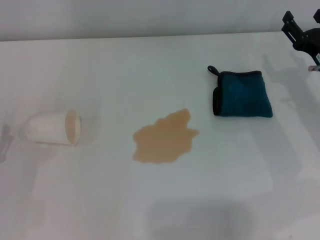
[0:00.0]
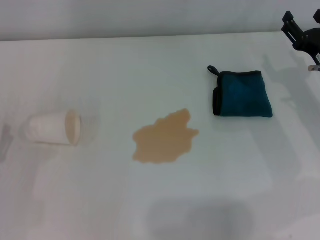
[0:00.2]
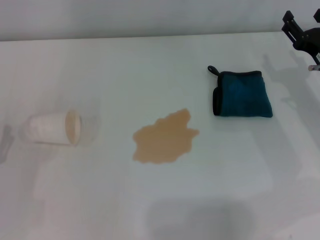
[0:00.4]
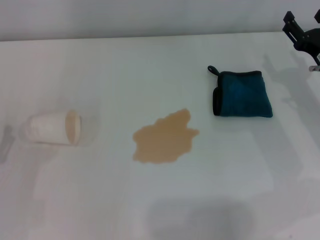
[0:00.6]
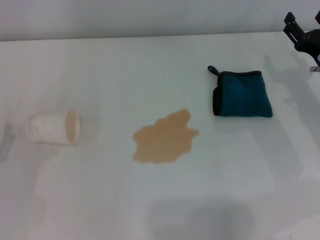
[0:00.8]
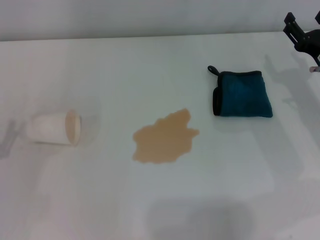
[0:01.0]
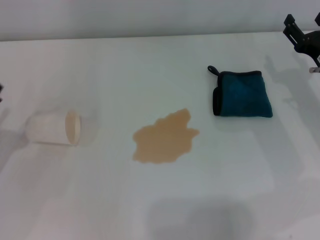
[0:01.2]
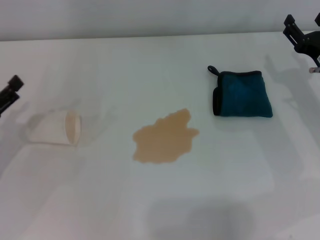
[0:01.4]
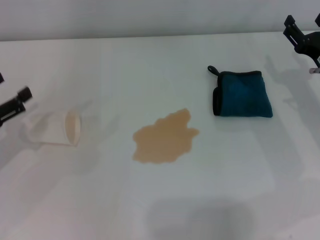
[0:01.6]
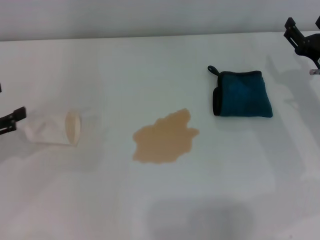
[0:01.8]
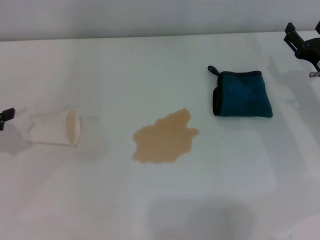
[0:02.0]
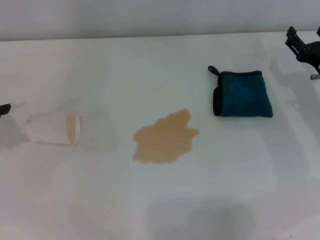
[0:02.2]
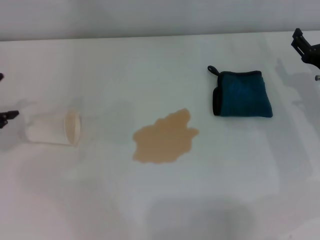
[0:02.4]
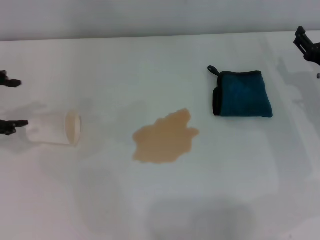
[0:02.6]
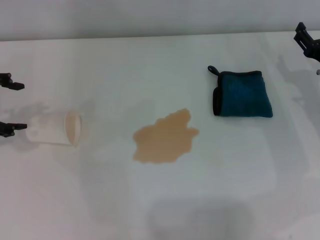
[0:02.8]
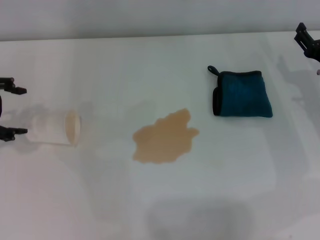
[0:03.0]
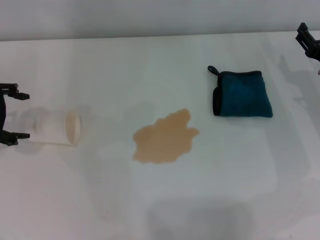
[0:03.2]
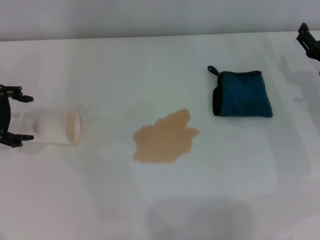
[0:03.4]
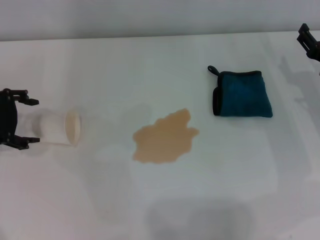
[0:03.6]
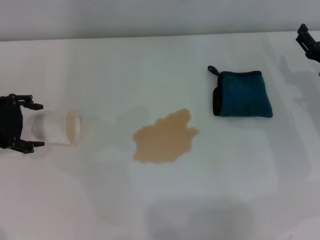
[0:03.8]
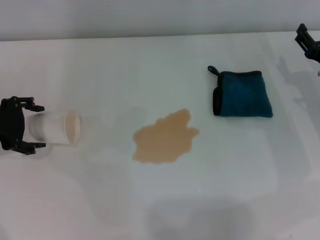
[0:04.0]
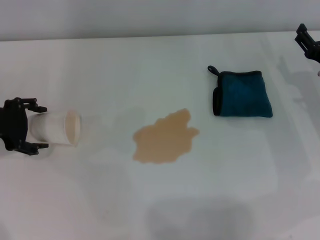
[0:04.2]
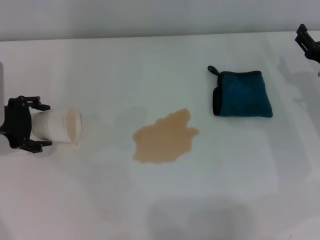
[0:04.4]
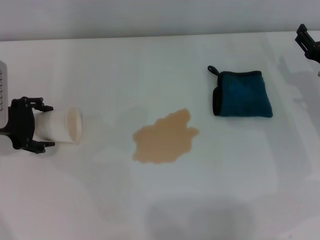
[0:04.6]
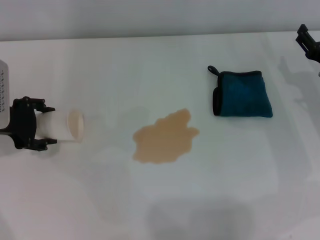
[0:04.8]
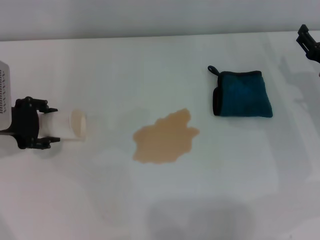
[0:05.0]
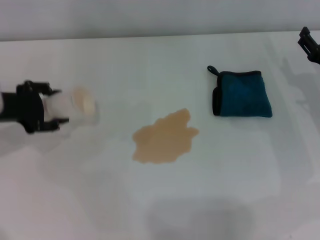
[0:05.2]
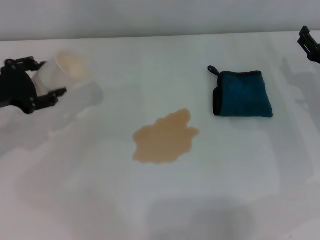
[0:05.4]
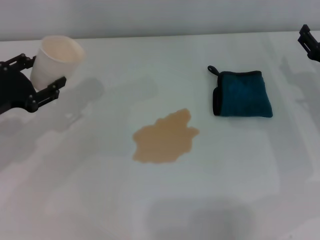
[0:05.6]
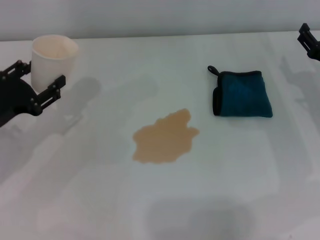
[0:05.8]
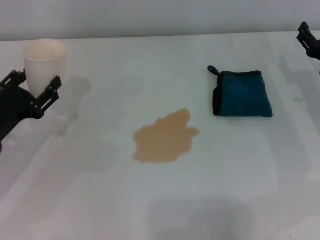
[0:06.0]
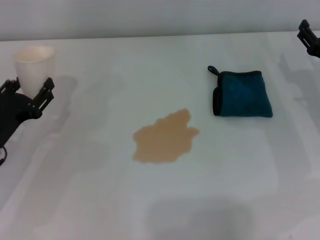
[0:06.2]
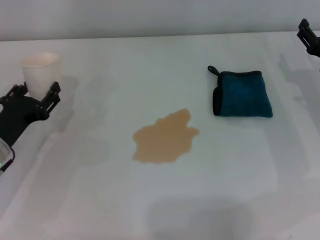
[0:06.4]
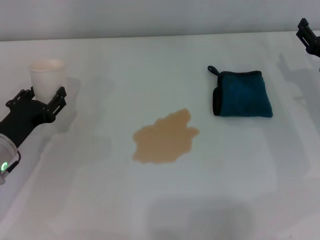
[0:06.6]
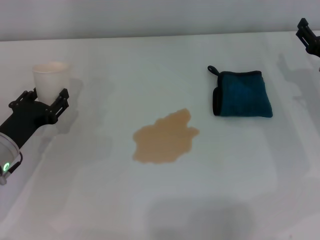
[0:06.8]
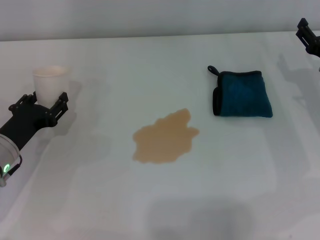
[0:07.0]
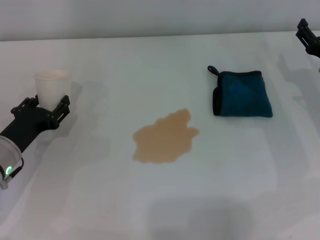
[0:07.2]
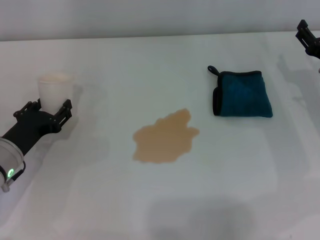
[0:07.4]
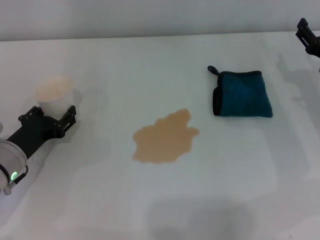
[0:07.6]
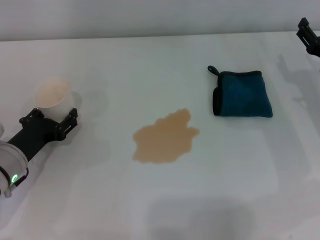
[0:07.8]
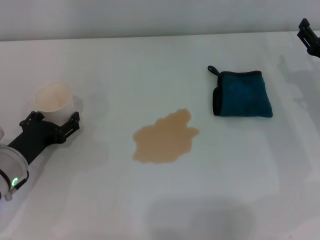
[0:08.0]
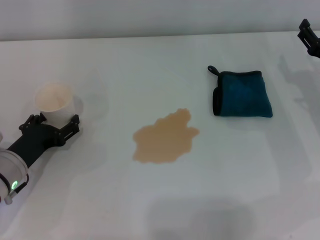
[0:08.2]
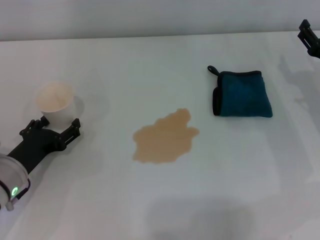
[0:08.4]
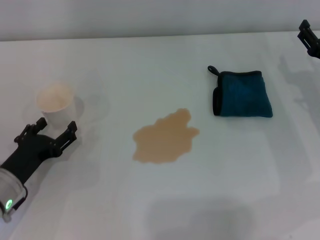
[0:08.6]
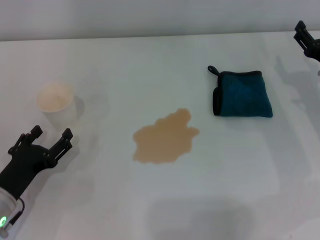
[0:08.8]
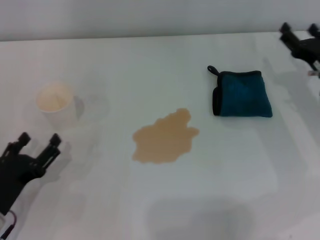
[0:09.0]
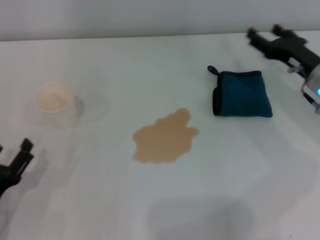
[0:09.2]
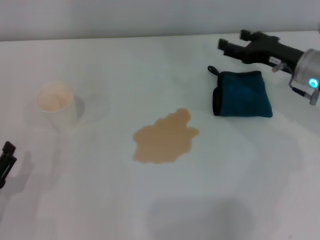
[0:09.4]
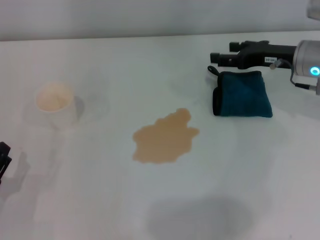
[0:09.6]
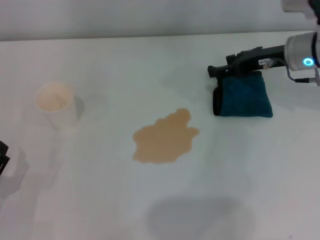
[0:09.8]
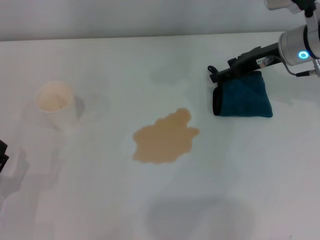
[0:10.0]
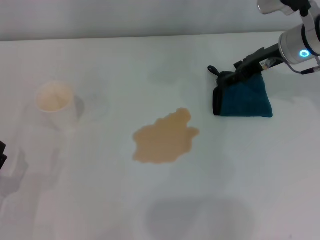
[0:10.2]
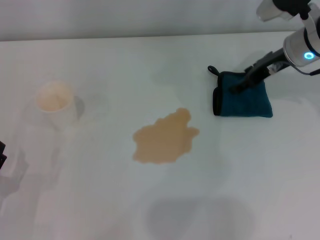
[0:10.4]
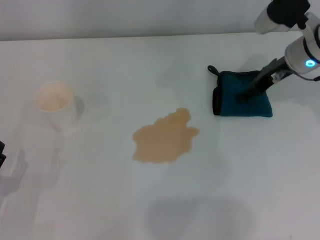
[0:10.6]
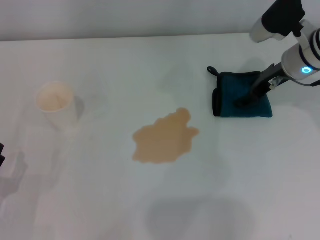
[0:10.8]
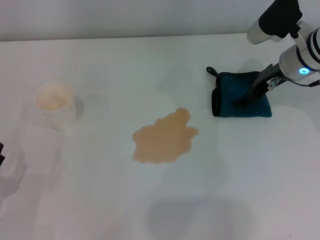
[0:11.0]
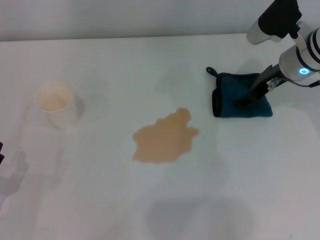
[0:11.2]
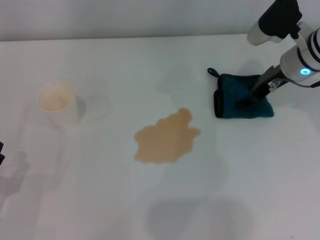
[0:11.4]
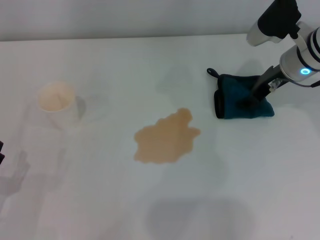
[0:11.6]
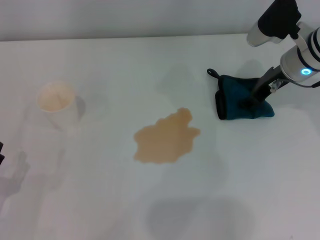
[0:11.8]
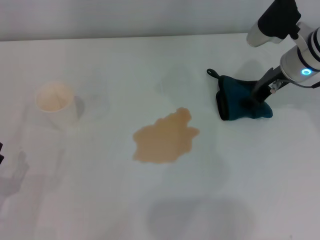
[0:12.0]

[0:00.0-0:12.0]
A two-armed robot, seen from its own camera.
Step, 0:00.0 to 0:04.6: Grasp the paper cup with the left gripper.
Step, 0:04.8 to 0:08.4: Stand the paper cup upright with the left gripper.
0:00.0 to 0:01.6: The left gripper is displaced upward and forward by about 10 cm.
0:01.6 to 0:03.0: The left gripper heads upward and forward, covering about 10 cm.
0:03.0 to 0:04.4: The left gripper heads downward, covering approximately 5 cm.
0:04.4 to 0:06.0: The left gripper shifts roughly 10 cm backward and downward, and closes up.
0:06.0 to 0:07.6: The left gripper ends up some 5 cm from where it was.
0:07.6 to 0:09.0: The left gripper moves backward, about 10 cm, and opens.
0:09.0 to 0:10.4: The right gripper shifts roughly 15 cm forward and upward. The left gripper ends up roughly 5 cm from where it was.
0:10.4 to 0:12.0: The grippers stay close to where they were, moving slightly.

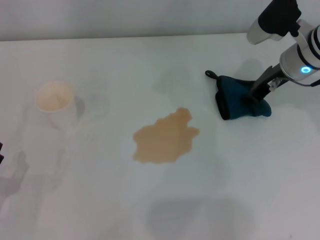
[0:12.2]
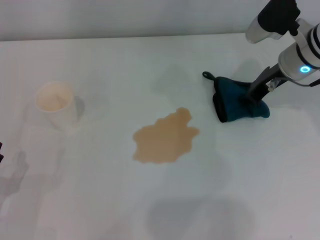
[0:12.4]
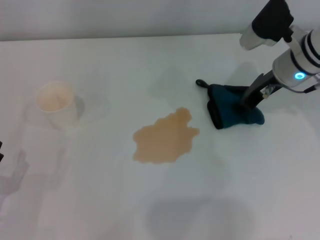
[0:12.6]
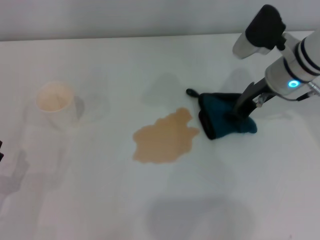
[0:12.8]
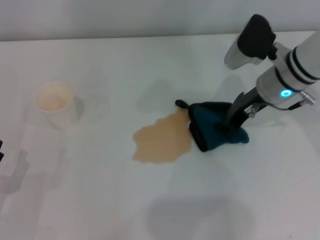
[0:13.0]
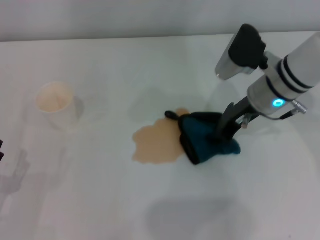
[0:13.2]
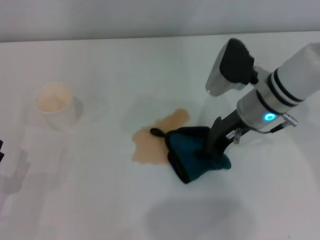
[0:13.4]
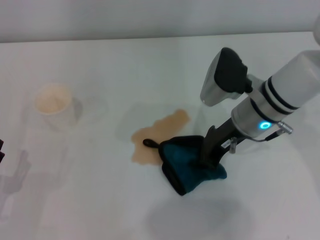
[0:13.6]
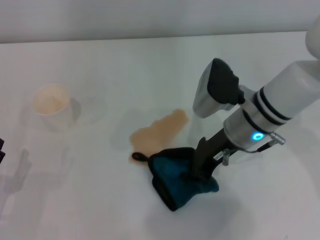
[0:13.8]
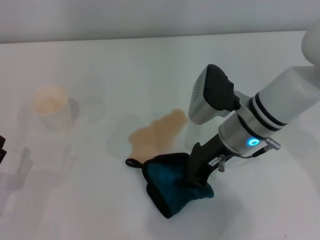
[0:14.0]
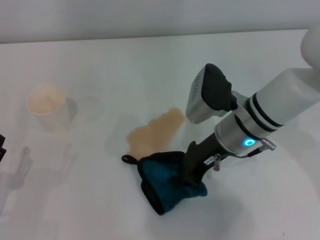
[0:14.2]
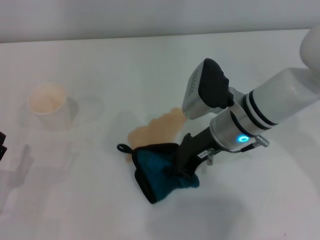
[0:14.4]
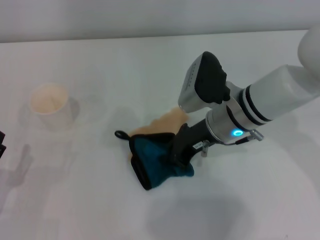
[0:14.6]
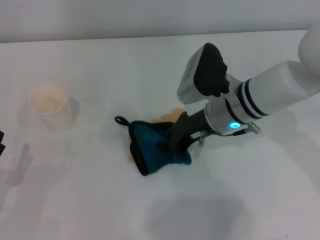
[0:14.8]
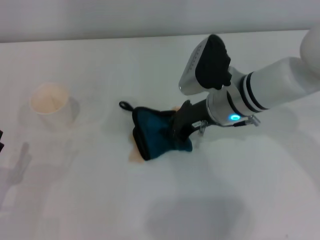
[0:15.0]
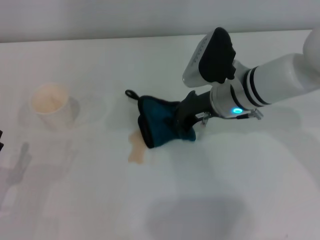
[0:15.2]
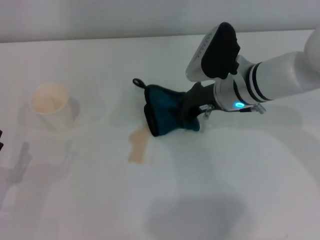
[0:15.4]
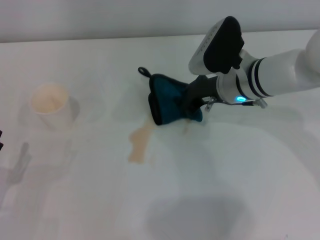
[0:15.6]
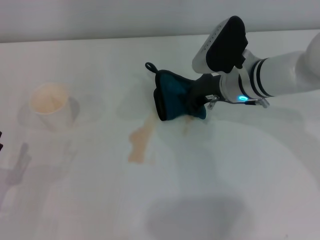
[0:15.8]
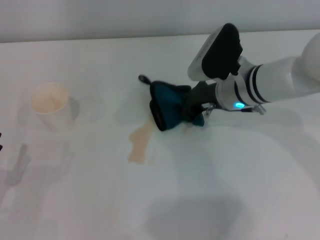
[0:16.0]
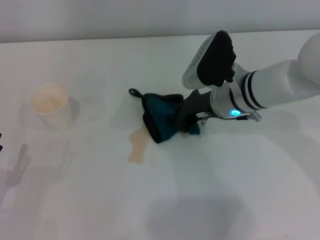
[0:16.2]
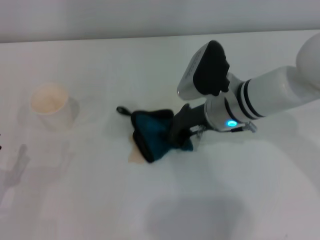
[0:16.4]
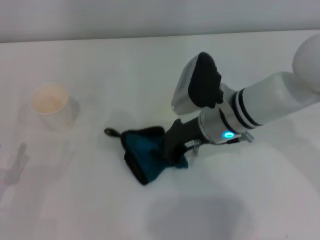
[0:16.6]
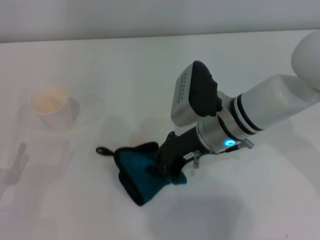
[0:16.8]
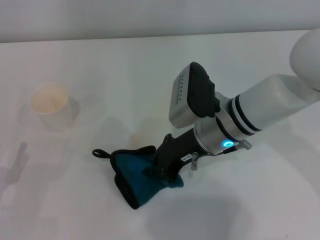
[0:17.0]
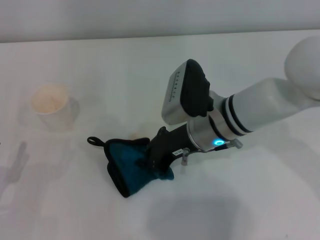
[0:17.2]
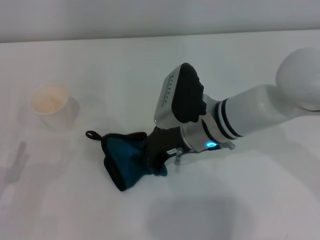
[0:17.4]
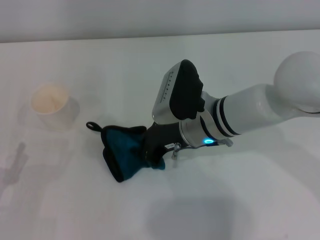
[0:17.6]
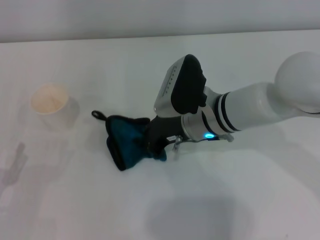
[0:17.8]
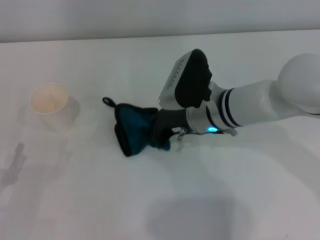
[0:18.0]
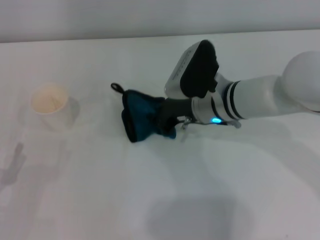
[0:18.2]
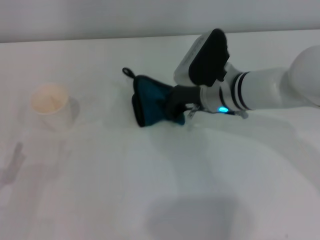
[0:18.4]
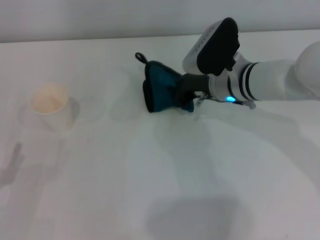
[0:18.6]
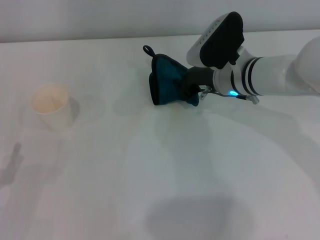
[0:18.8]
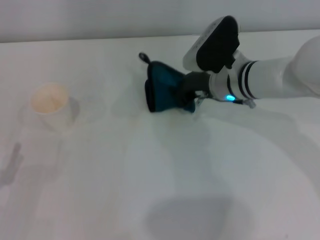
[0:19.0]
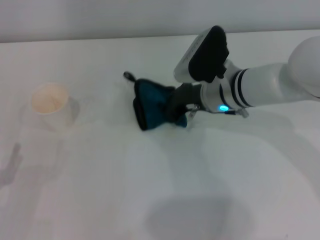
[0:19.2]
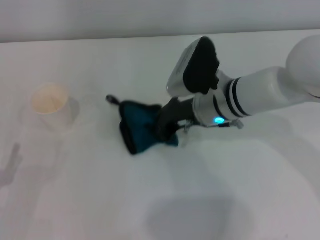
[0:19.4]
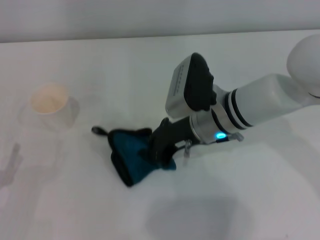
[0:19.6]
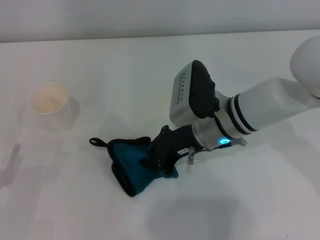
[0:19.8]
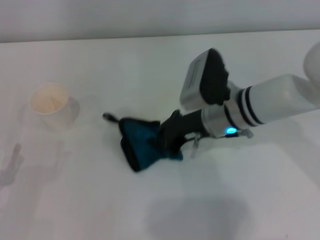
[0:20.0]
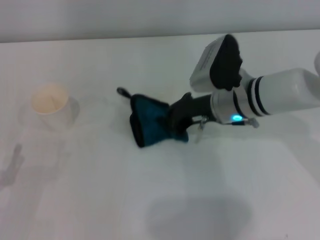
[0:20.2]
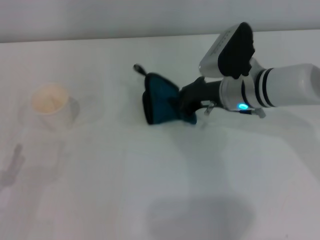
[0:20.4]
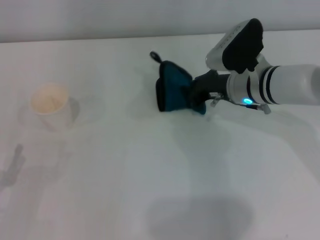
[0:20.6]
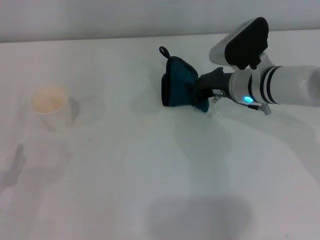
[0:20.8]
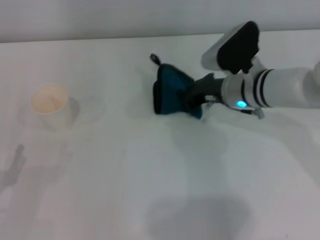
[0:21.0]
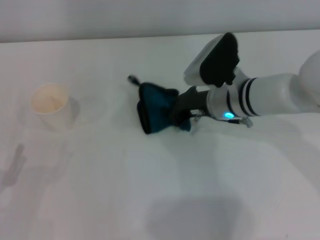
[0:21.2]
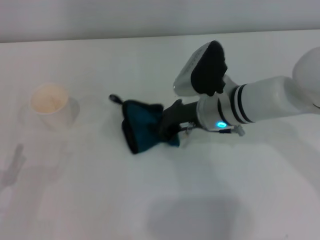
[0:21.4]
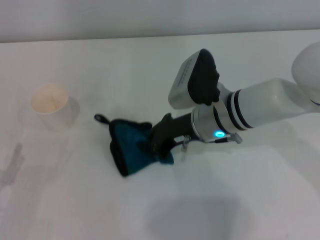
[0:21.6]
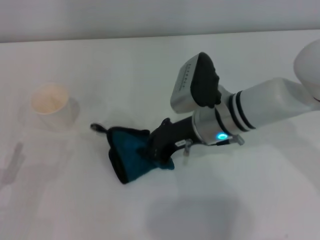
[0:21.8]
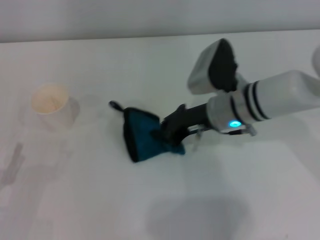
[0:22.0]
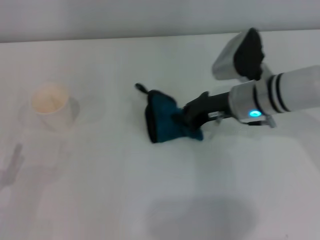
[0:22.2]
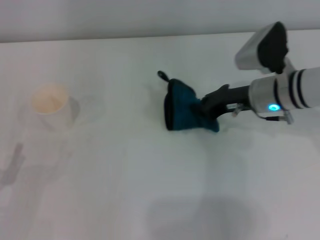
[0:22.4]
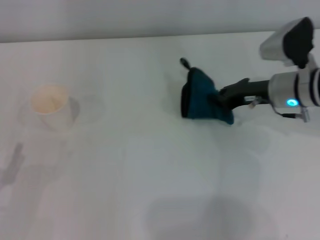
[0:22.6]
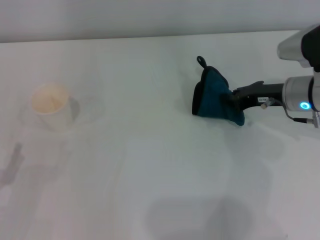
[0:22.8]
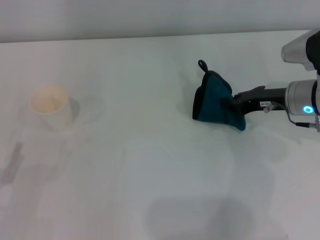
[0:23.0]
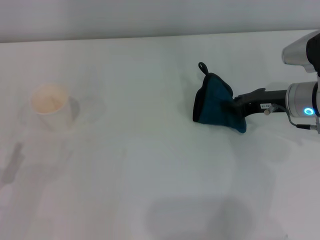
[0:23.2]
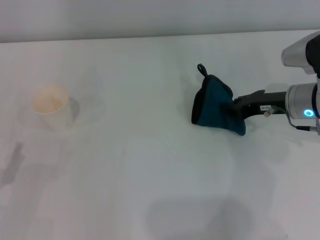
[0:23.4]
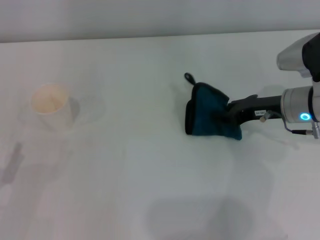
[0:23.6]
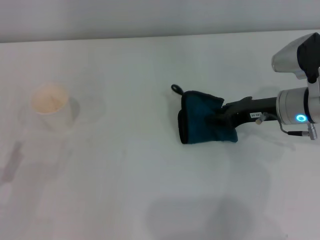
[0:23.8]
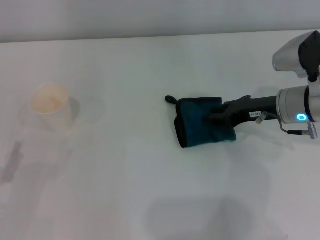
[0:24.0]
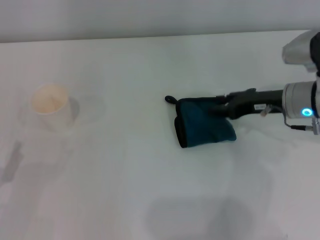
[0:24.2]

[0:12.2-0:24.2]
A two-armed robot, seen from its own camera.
Step, 0:12.4 to 0:22.6: Wipe the stains off the table with the right gripper.
Step, 0:22.8 to 0:24.0: Place the rag on the table with the right gripper.
0:12.2 to 0:13.8: The right gripper heads to the left and backward, covering about 15 cm.
0:15.2 to 0:16.6: The grippers stay close to where they were, moving slightly.
0:16.6 to 0:18.2: The grippers stay close to where they were, moving slightly.
0:21.2 to 0:22.6: The right gripper heads to the right, covering about 10 cm.
0:22.6 to 0:24.2: The grippers make only small movements.
